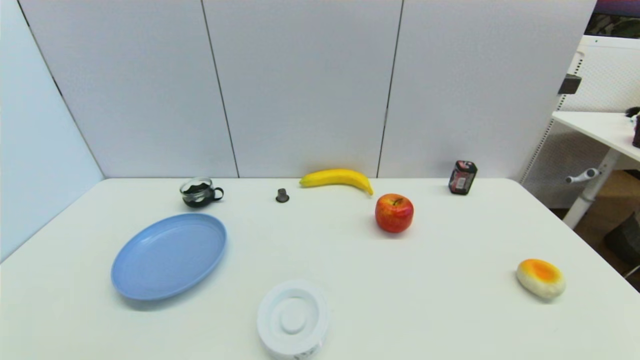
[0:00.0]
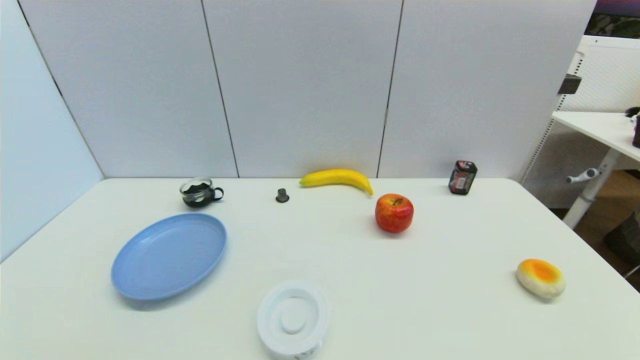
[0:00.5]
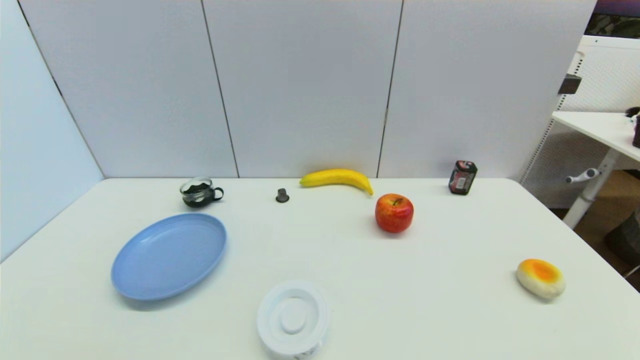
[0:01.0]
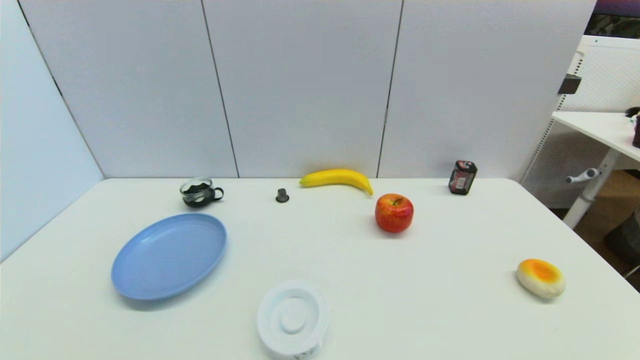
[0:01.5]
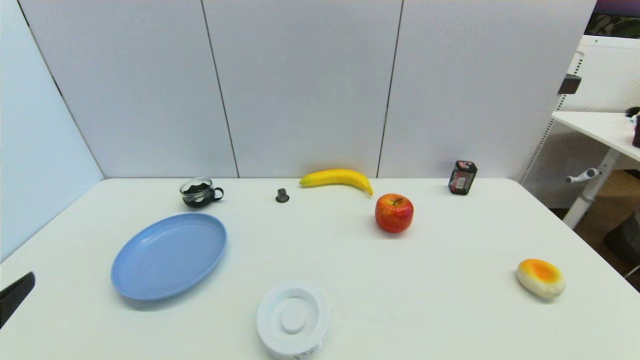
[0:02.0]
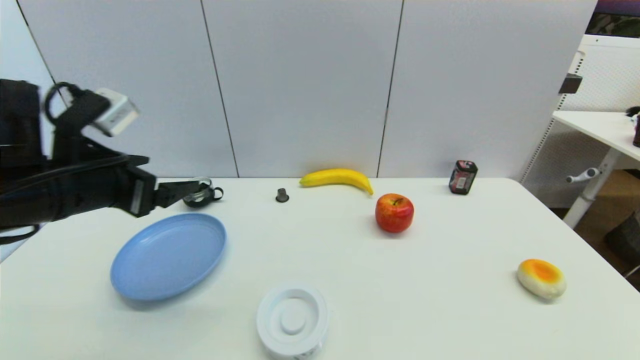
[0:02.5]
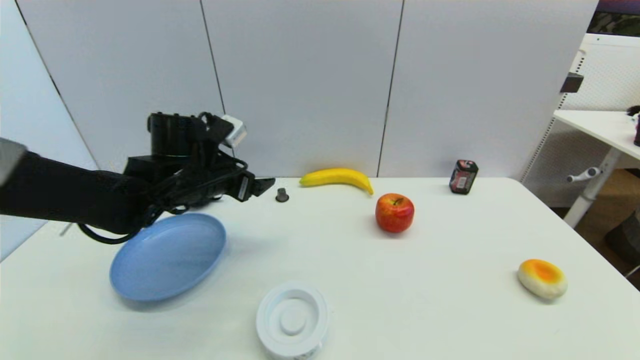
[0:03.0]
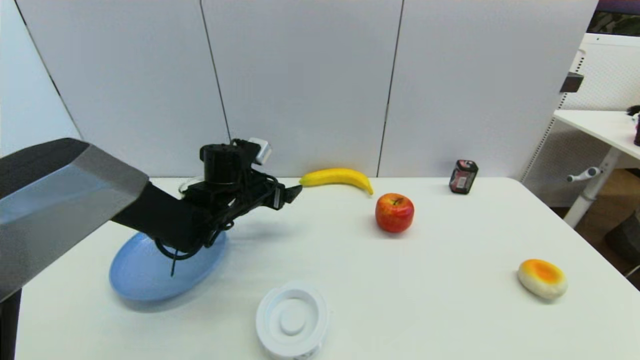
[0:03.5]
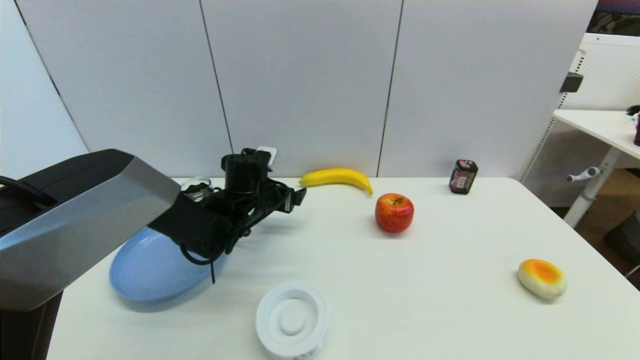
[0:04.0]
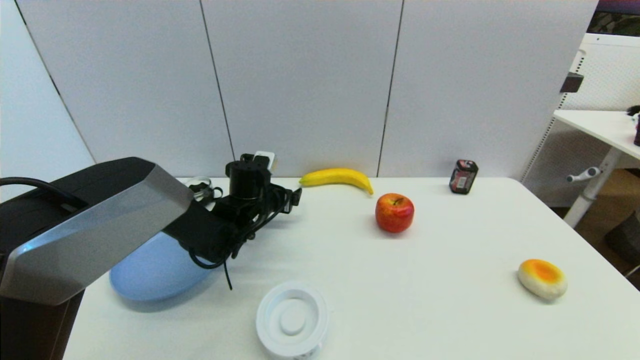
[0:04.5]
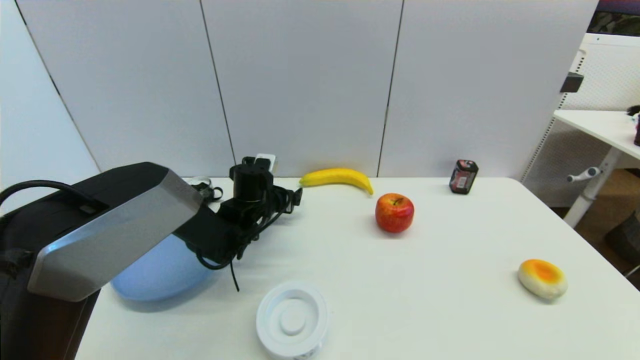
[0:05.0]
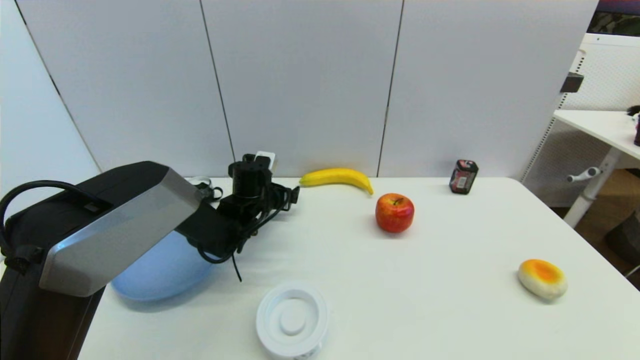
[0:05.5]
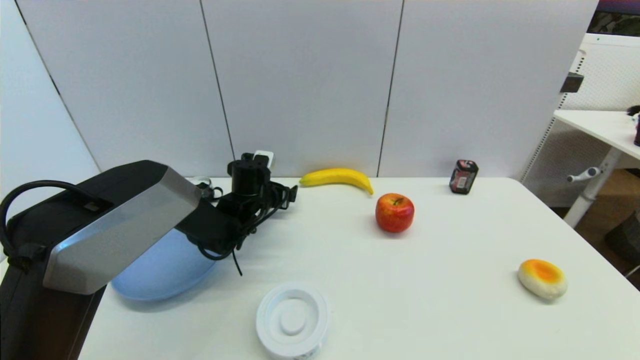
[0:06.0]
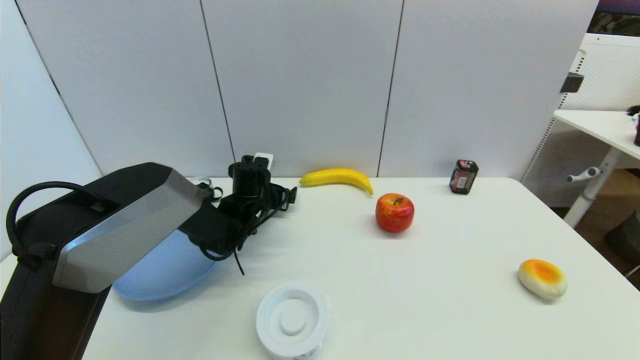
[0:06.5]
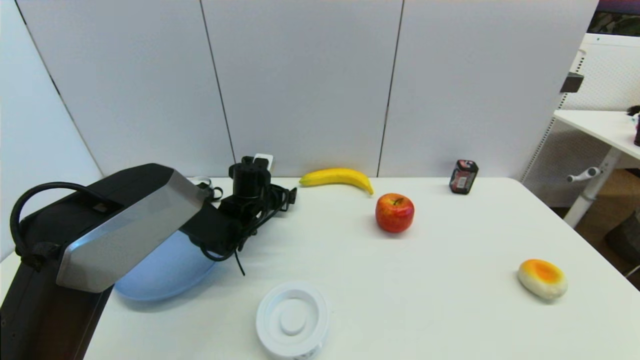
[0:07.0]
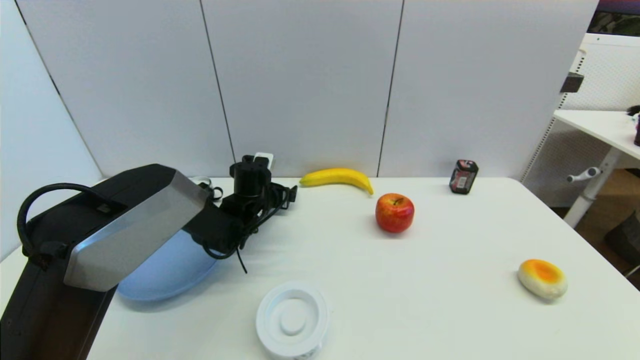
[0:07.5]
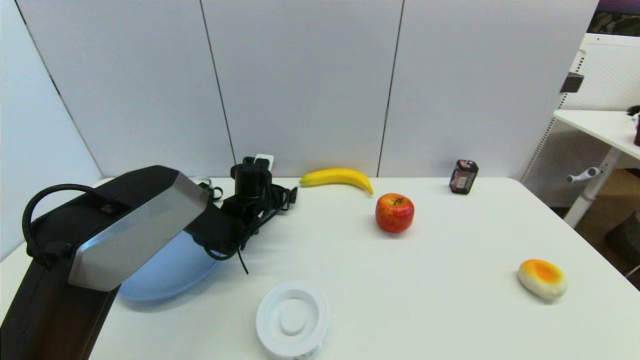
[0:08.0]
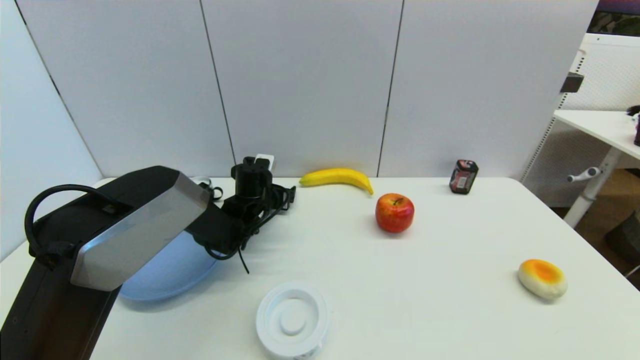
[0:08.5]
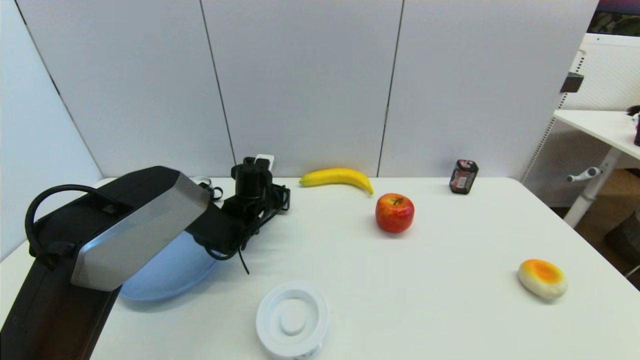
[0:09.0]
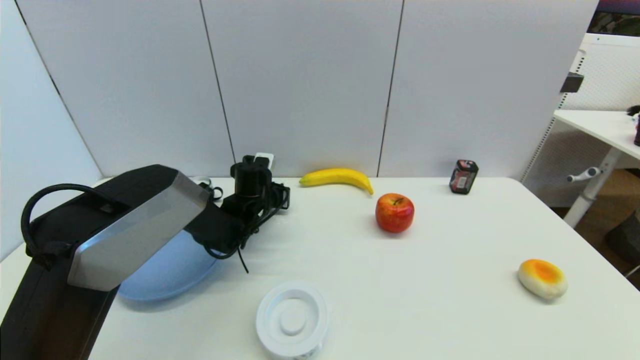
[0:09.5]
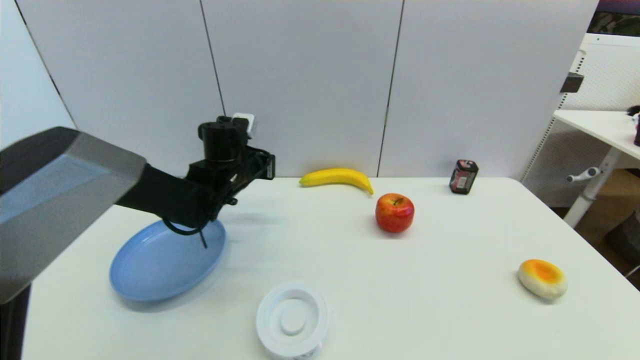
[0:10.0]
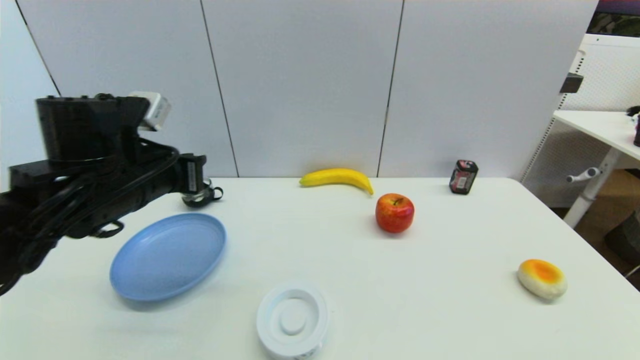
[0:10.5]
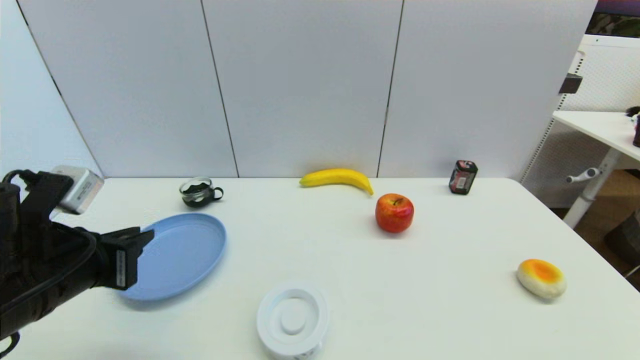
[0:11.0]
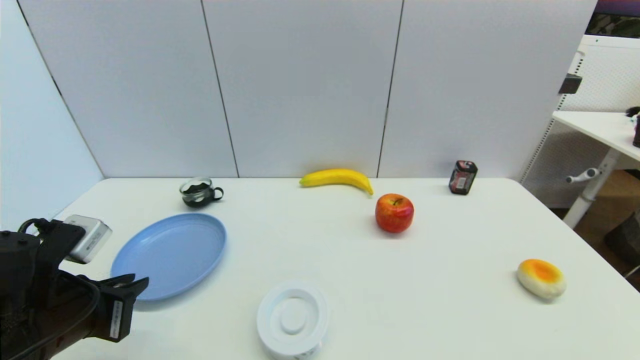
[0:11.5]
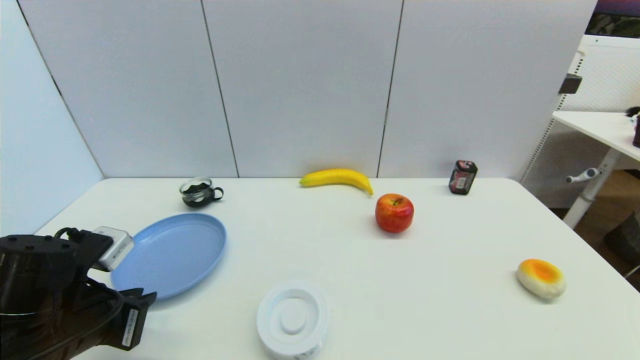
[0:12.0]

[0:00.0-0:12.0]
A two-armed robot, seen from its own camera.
Step, 0:01.5 to 0:09.0: Grasp the coffee capsule with left gripper.
0:02.0 to 0:04.0: The left gripper moves forward and to the right, roughly 40 cm.
0:04.0 to 0:08.0: The grippers move only a little.
0:08.0 to 0:10.0: The left gripper heads upward, covering approximately 10 cm, and closes.
0:10.0 to 0:12.0: The left gripper shifts some 25 cm backward and to the left.

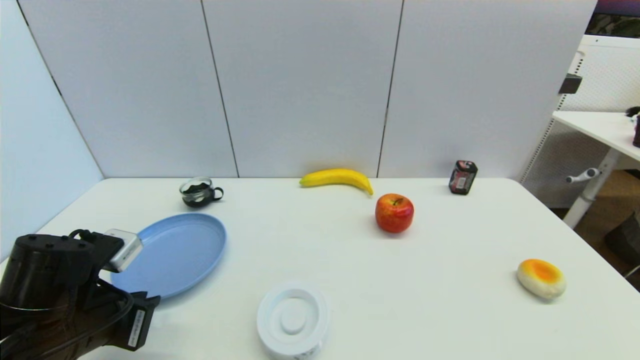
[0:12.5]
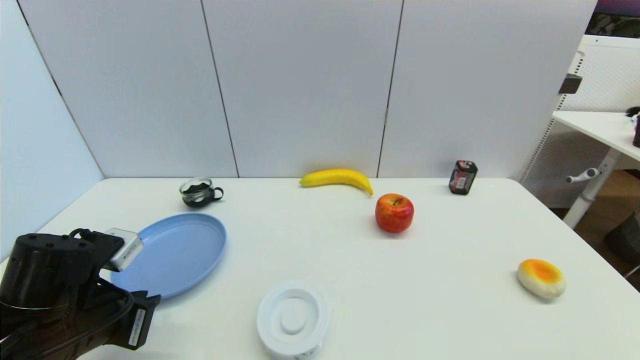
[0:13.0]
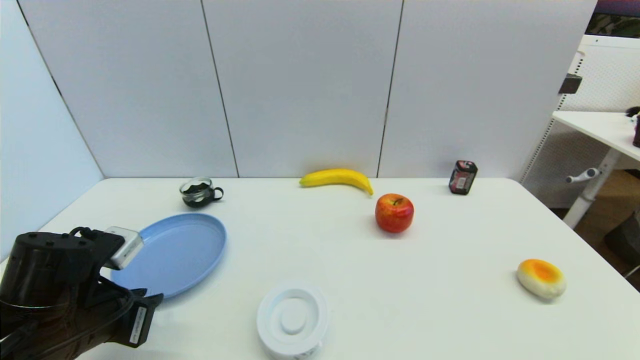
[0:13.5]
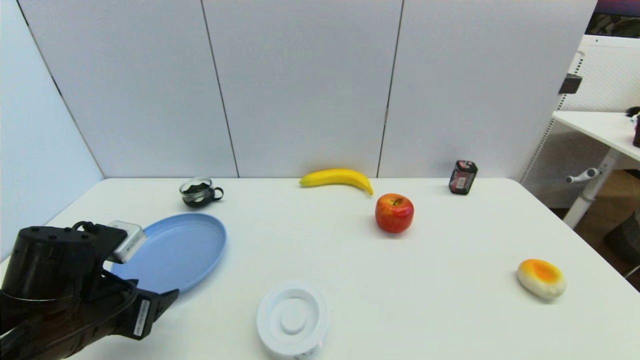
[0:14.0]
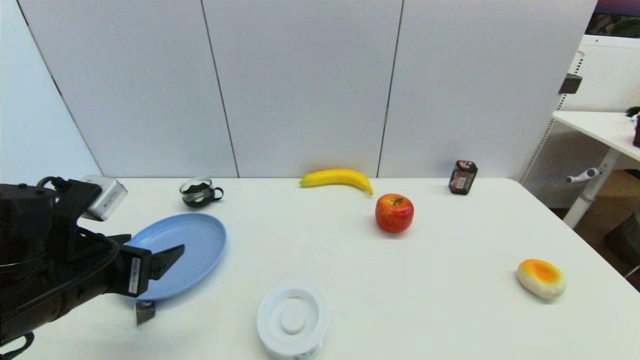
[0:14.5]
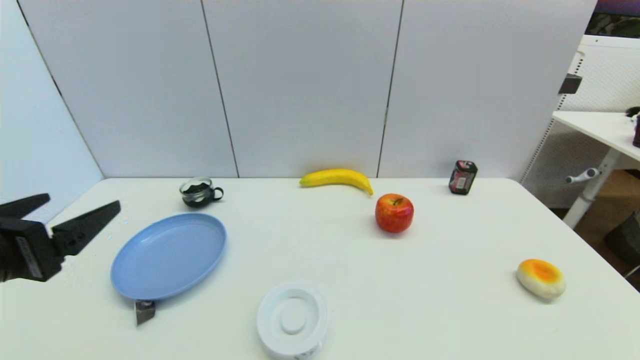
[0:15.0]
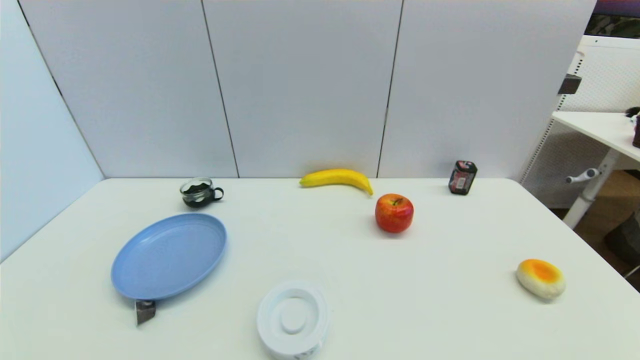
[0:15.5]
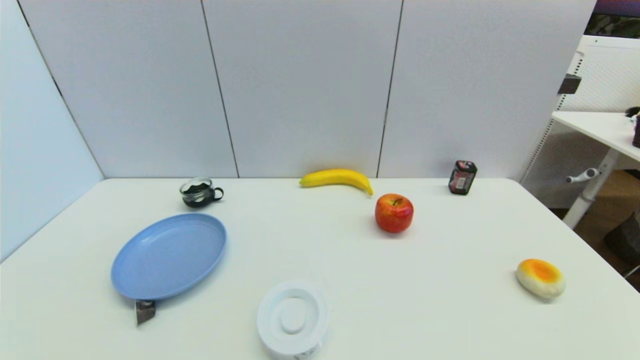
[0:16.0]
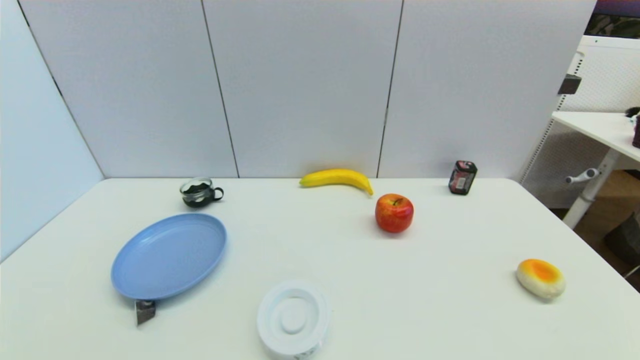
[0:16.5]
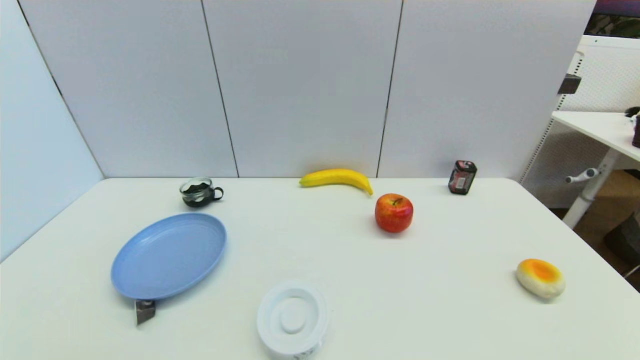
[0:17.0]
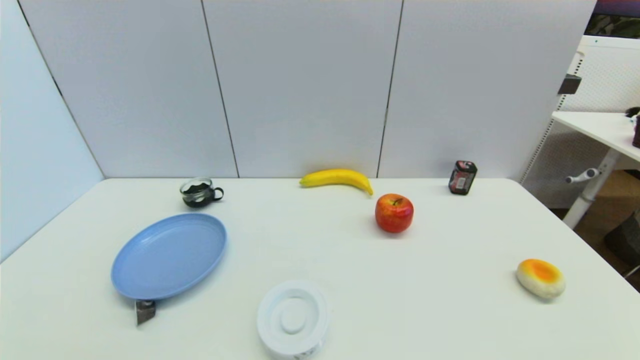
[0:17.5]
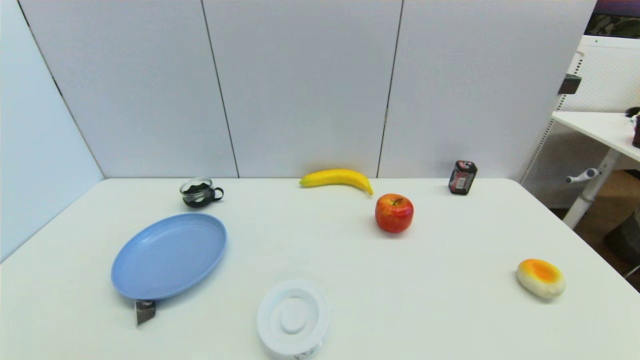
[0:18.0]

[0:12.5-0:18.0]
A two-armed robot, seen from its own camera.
0:12.5 to 0:14.5: The left gripper shifts roughly 5 cm upward, and opens up.
0:14.5 to 0:16.0: The left gripper heads backward, covering about 20 cm.
